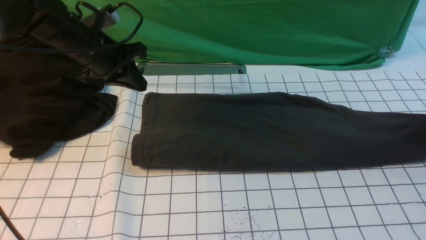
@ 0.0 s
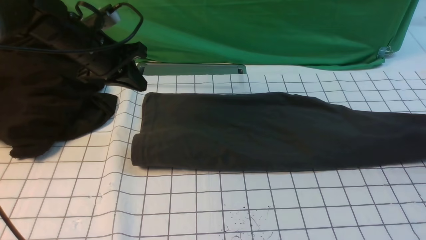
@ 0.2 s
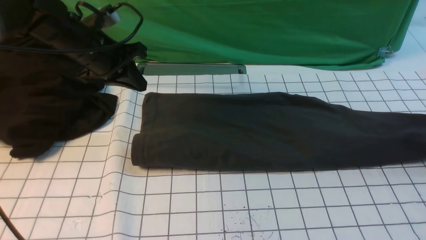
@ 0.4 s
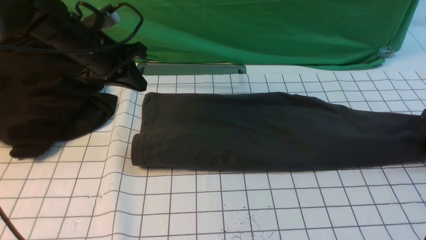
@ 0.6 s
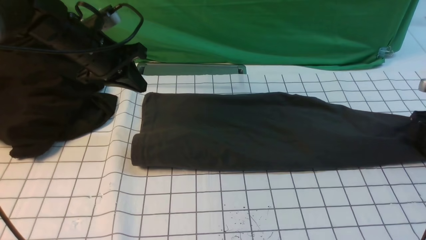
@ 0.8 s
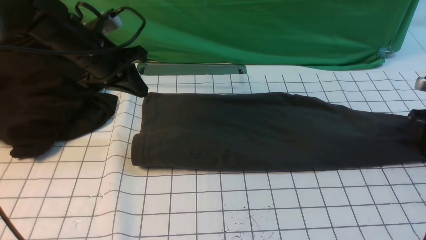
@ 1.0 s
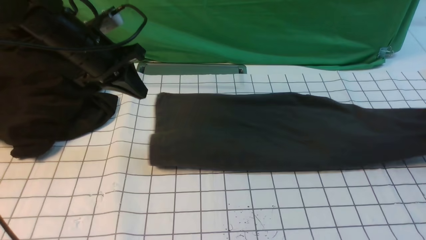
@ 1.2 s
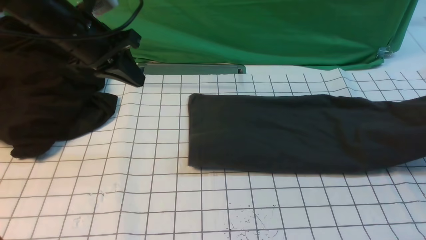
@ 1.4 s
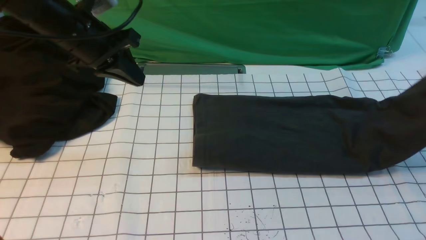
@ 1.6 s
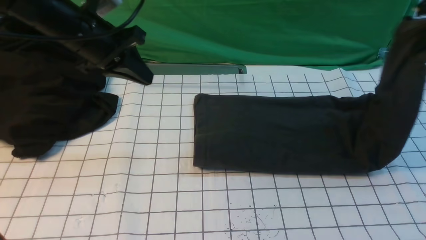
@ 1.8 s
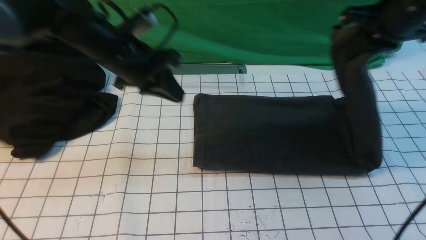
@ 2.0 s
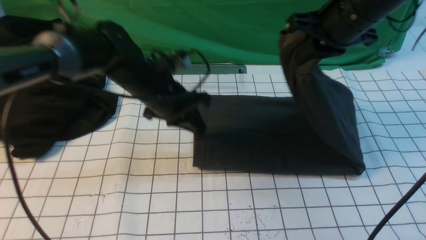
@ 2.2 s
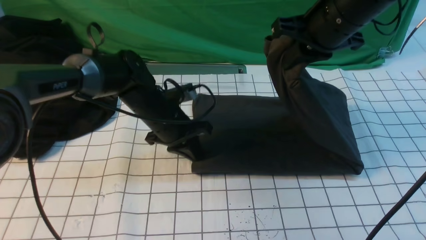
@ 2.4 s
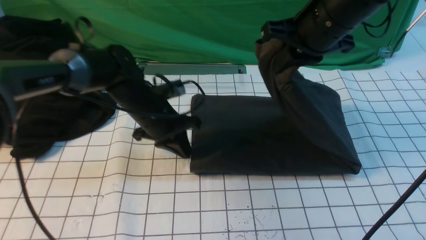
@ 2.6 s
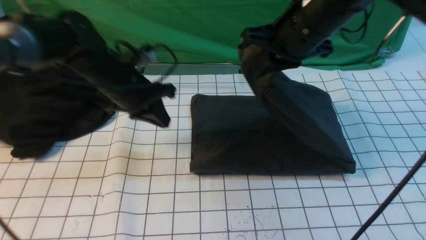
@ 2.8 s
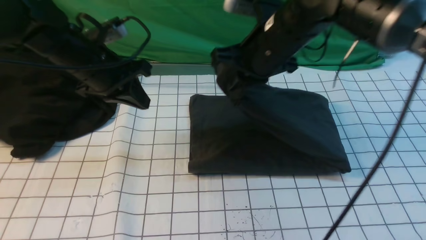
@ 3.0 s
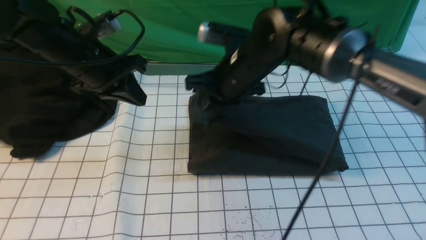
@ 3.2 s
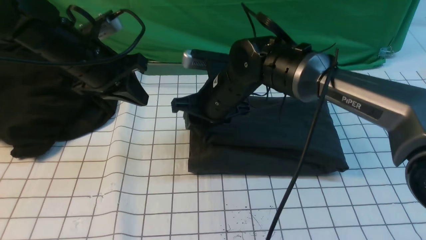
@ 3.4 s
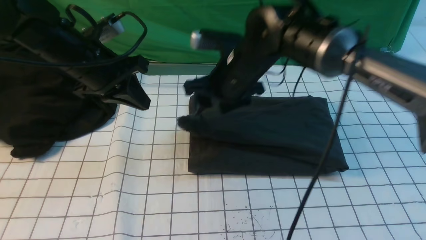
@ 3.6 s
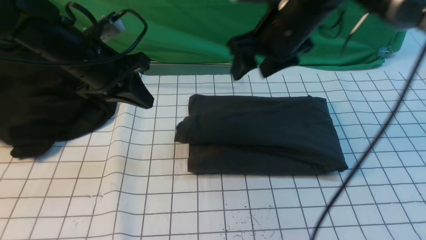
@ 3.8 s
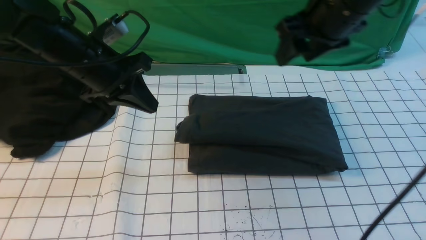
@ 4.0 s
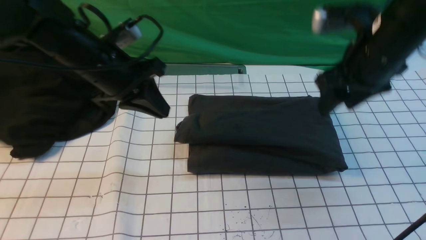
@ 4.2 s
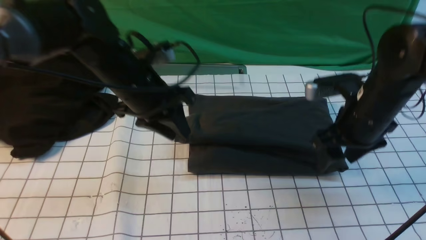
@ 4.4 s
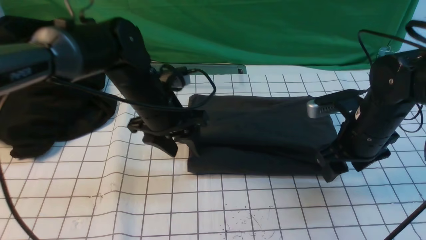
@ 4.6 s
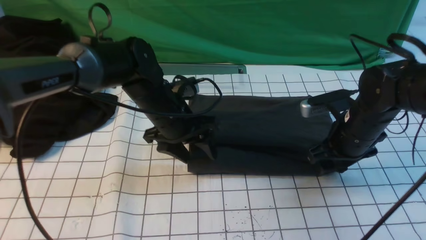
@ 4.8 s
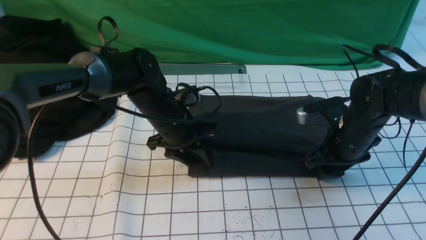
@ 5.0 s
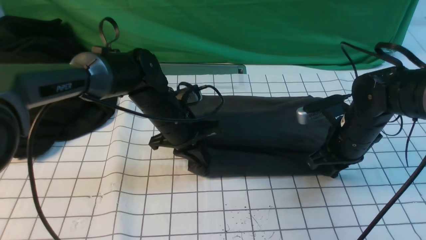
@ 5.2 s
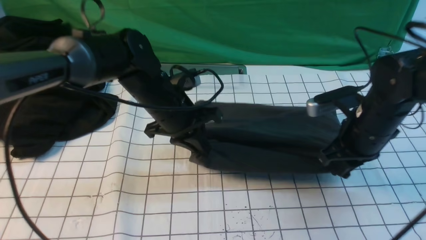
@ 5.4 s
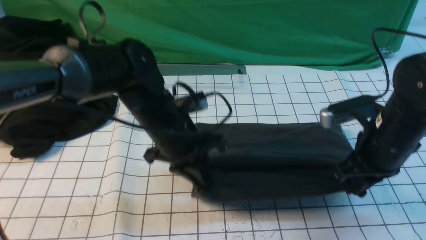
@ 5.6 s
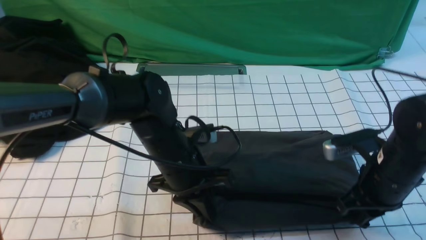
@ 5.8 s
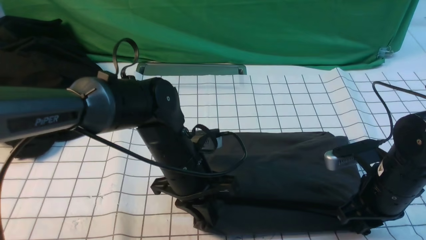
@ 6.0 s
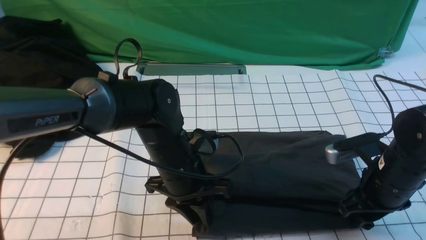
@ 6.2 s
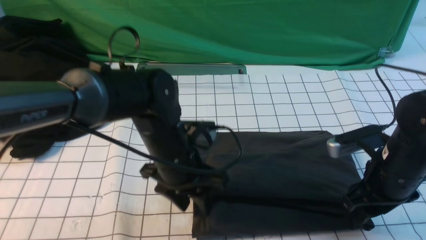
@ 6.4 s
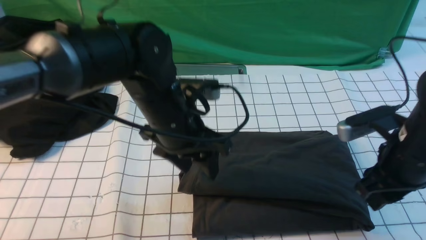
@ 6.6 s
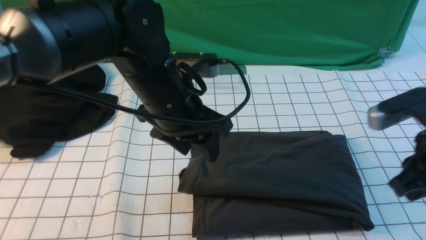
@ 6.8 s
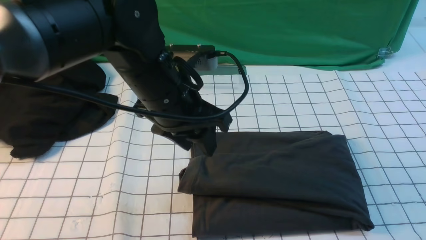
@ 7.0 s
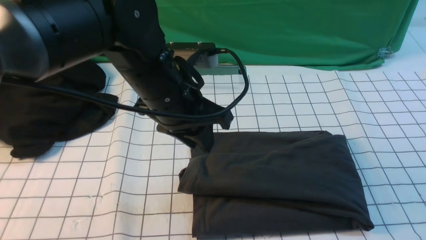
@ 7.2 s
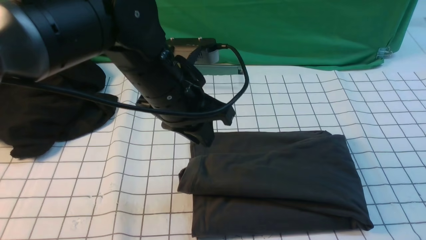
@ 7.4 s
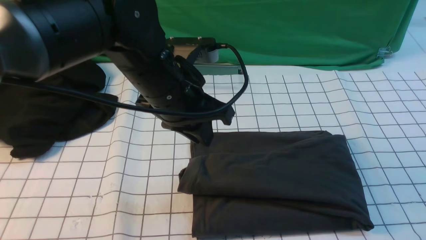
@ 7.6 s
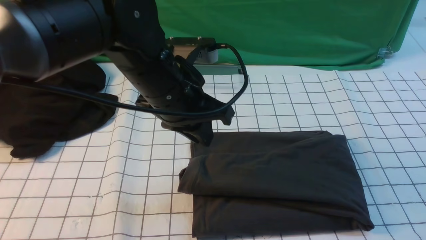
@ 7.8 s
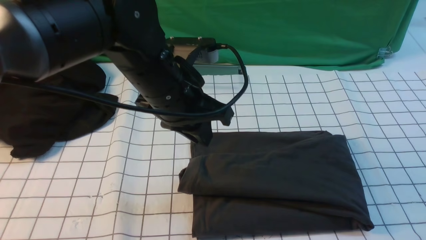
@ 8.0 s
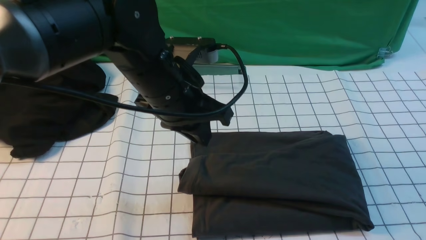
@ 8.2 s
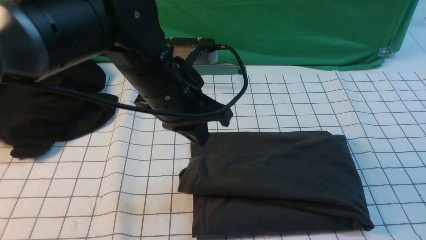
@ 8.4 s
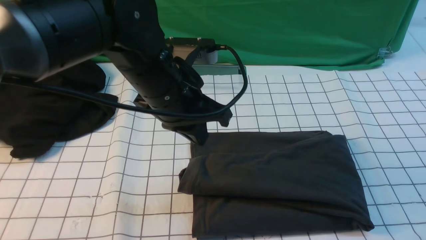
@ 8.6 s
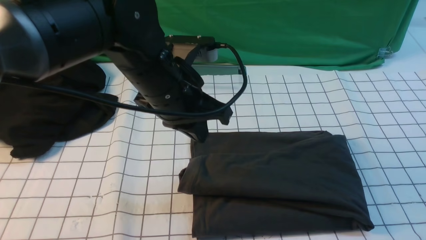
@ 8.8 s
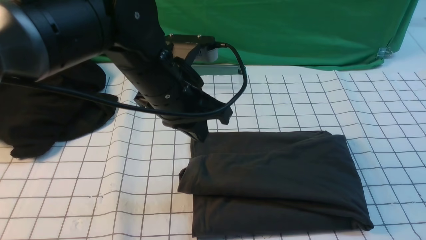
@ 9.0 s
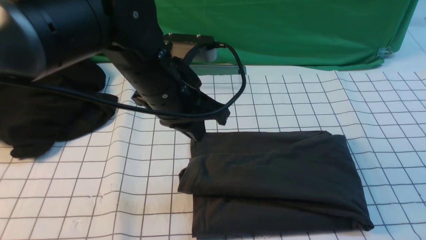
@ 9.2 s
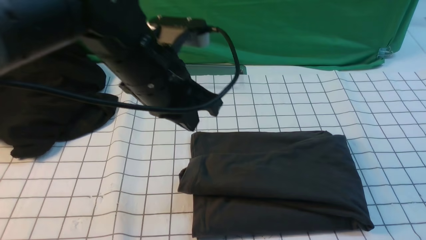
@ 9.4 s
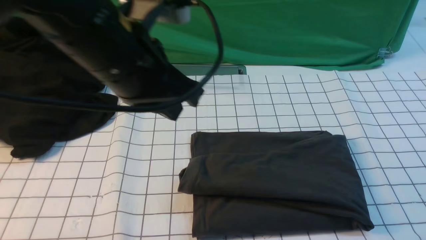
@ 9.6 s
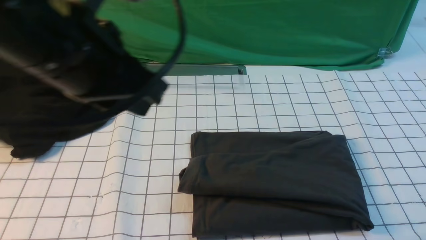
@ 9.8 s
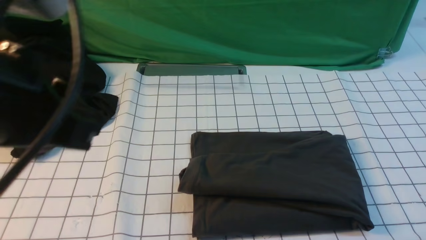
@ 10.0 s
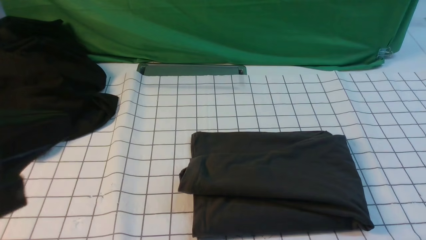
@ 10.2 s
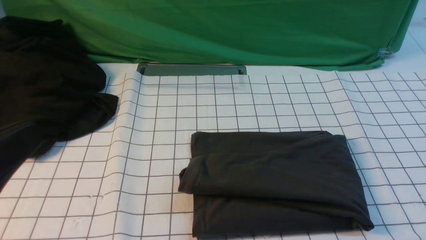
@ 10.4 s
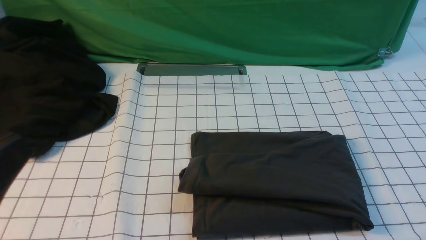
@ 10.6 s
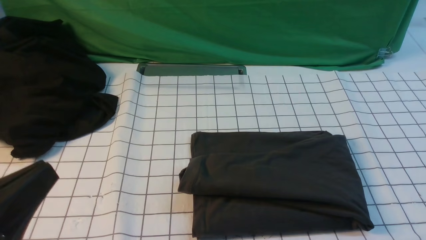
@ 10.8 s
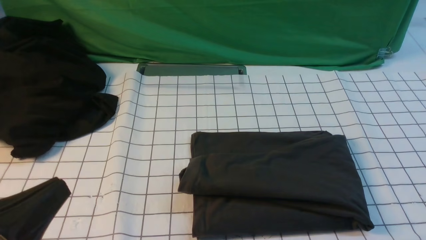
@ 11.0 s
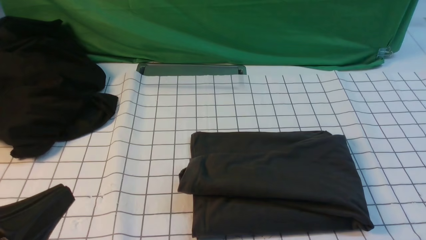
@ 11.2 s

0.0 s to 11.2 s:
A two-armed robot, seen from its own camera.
Step, 1.0 to 3.6 s: use the right arm to drag the right edge of the fabric to the left and folds it over the left edge.
0.0 to 1.6 s: The left gripper moves some 5 cm. The right gripper travels upward by roughly 15 cm, and closes up.
1.6 to 3.2 s: The right gripper shifts some 40 cm to the left; the left gripper reaches some 15 cm downward, then returns.
3.2 to 4.8 s: The right gripper travels to the right by about 20 cm, and opens up; the left gripper heads to the right and downward, covering roughly 15 cm, and opens up.
4.8 to 6.4 s: Both grippers move backward, roughly 10 cm. The right gripper closes, then reopens; the left gripper closes, then reopens.
6.4 to 8.0 s: The right gripper is displaced backward and upward by some 25 cm, and closes up, while the left gripper shifts some 10 cm upward, and closes its fingers.
8.0 to 9.6 s: The left gripper goes roughly 10 cm upward and backward. Meanwhile the right gripper shifts some 15 cm downward.
9.6 to 11.2 s: The left gripper travels backward, downward and to the left by some 25 cm.

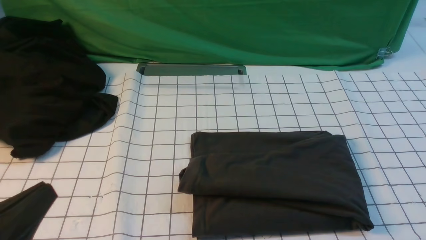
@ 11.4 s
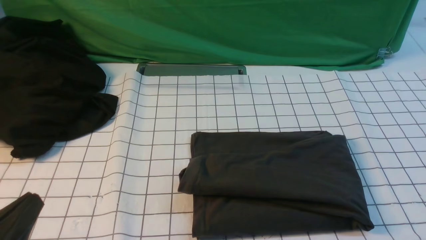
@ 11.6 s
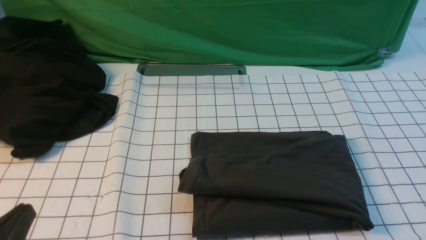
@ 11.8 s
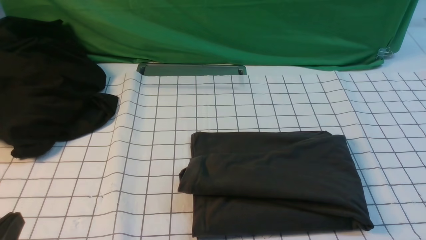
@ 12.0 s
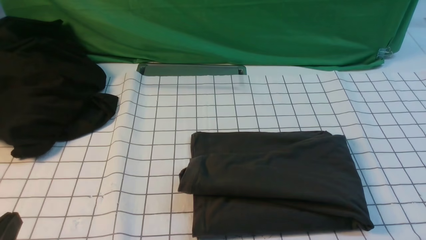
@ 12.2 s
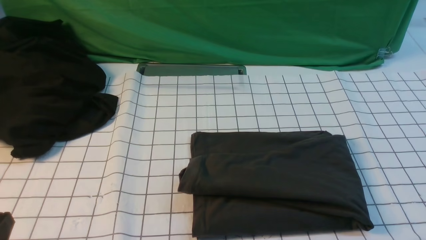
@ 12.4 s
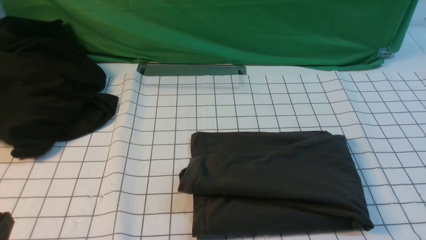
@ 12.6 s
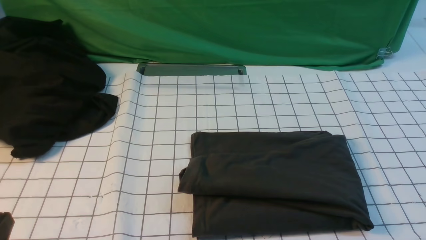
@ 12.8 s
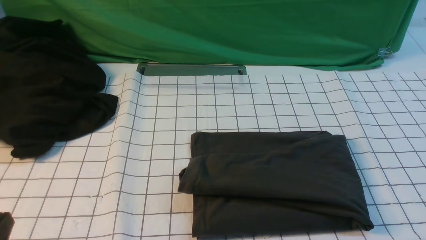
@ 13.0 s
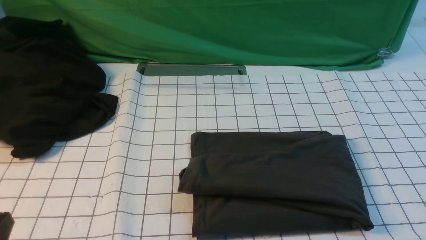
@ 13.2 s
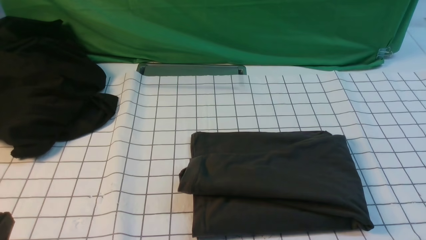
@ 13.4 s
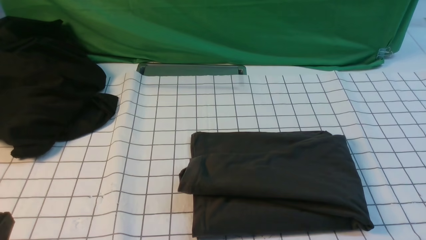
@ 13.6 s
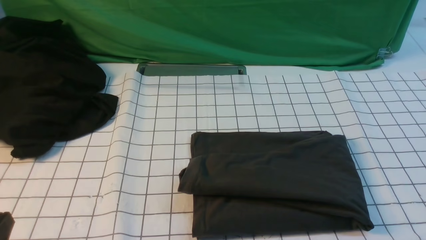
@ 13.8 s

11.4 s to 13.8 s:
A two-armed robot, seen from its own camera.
11.4 to 12.6 s: The left gripper ends up approximately 5 cm from where it was.
12.6 to 13.8 s: Both grippers stay put.
